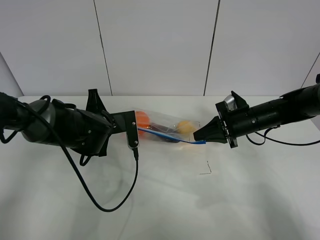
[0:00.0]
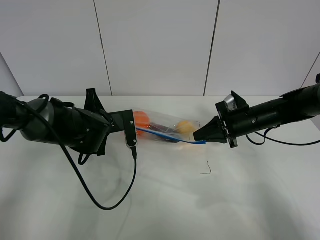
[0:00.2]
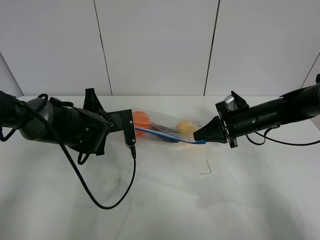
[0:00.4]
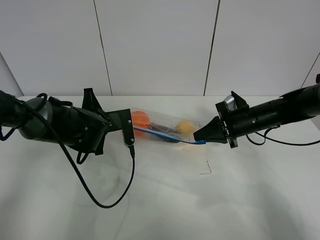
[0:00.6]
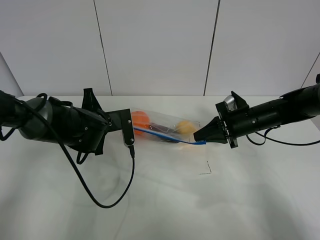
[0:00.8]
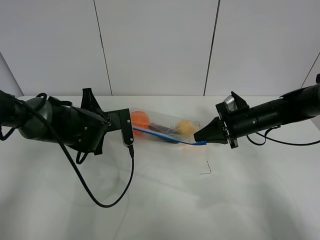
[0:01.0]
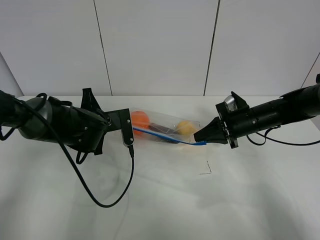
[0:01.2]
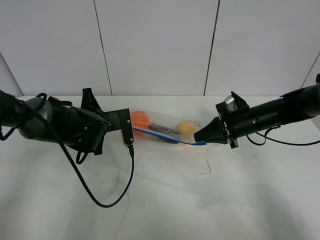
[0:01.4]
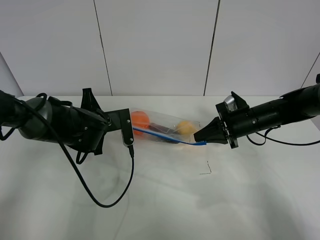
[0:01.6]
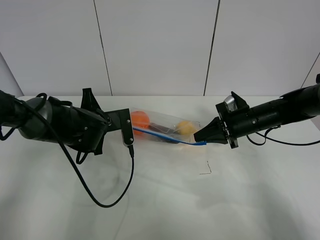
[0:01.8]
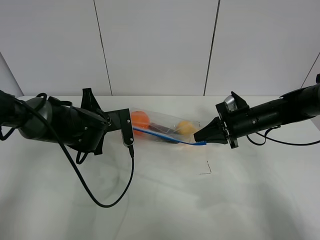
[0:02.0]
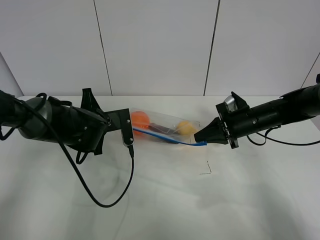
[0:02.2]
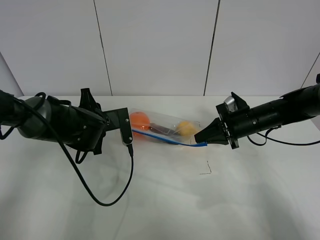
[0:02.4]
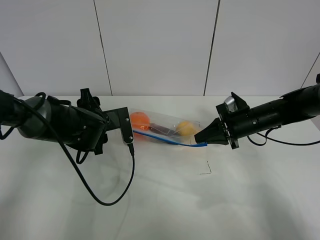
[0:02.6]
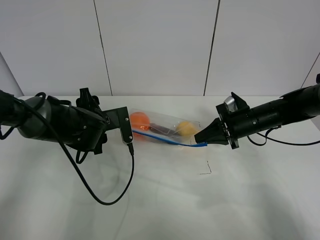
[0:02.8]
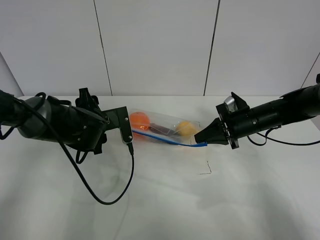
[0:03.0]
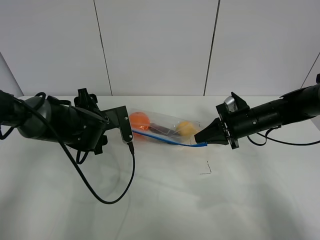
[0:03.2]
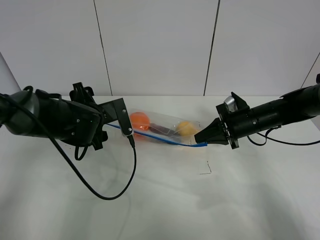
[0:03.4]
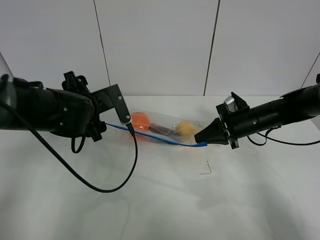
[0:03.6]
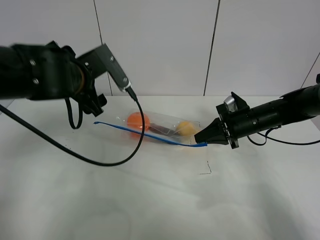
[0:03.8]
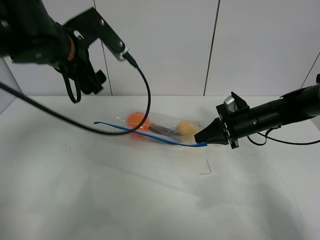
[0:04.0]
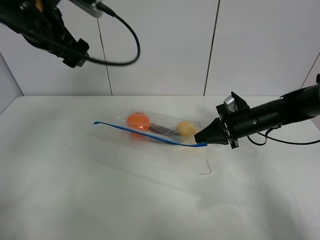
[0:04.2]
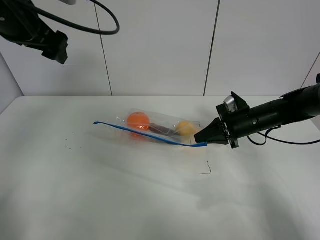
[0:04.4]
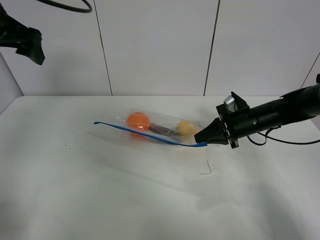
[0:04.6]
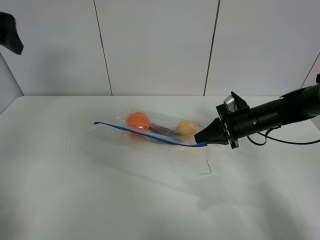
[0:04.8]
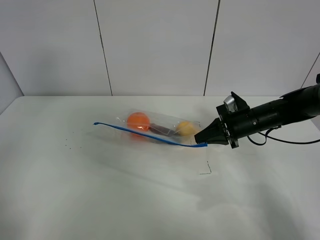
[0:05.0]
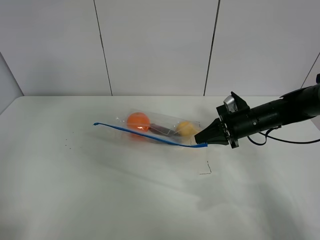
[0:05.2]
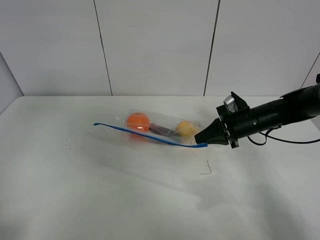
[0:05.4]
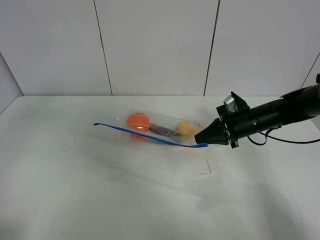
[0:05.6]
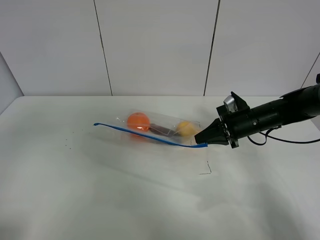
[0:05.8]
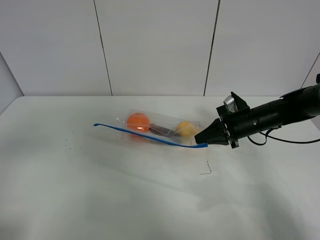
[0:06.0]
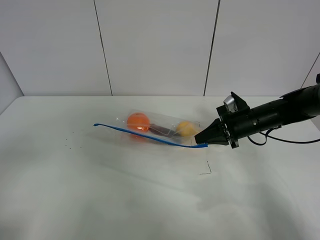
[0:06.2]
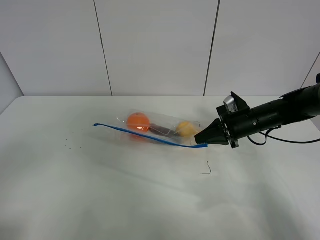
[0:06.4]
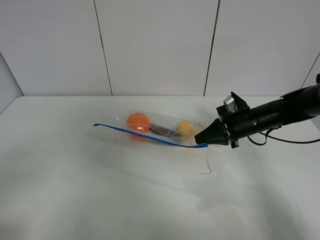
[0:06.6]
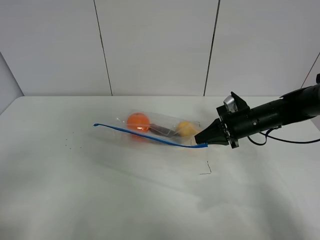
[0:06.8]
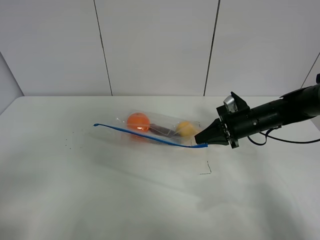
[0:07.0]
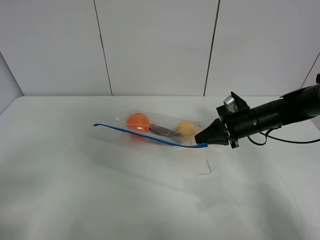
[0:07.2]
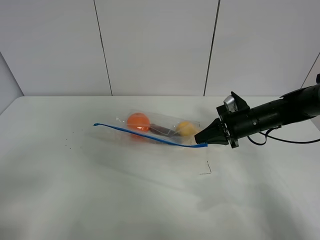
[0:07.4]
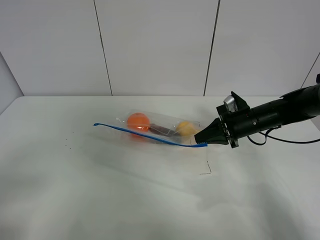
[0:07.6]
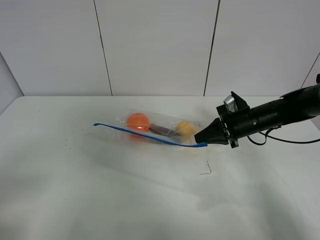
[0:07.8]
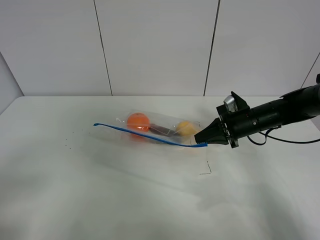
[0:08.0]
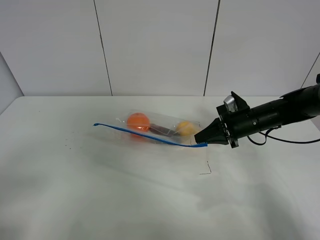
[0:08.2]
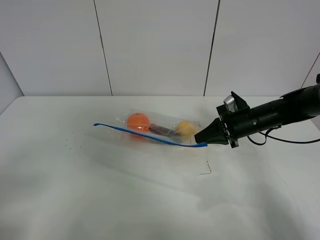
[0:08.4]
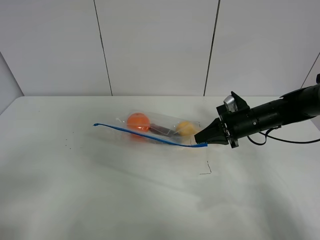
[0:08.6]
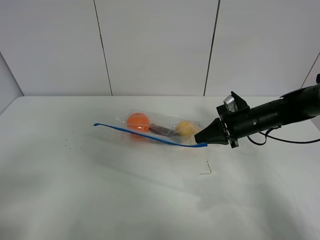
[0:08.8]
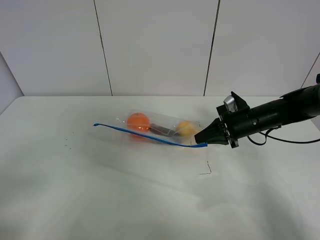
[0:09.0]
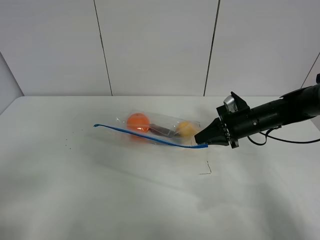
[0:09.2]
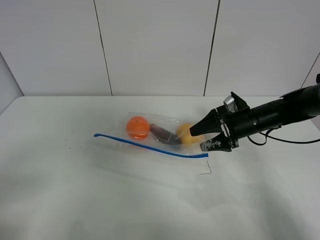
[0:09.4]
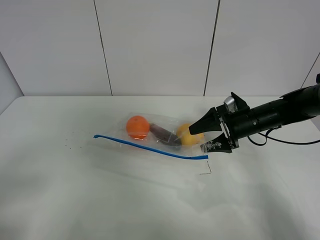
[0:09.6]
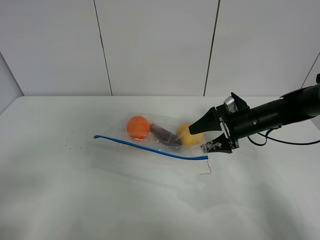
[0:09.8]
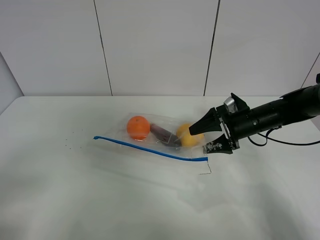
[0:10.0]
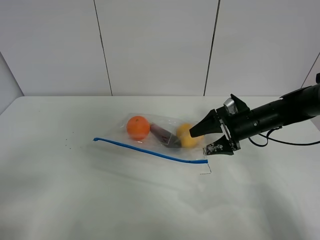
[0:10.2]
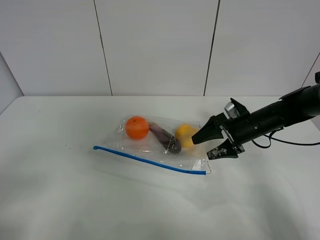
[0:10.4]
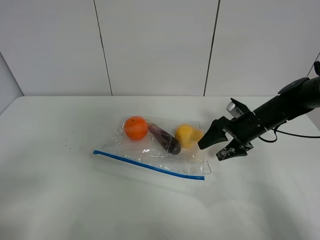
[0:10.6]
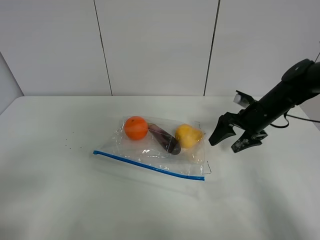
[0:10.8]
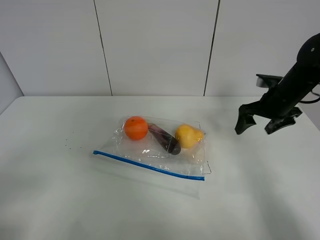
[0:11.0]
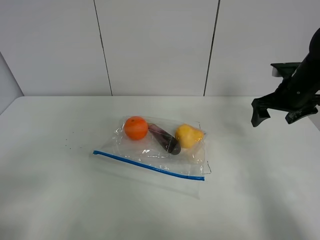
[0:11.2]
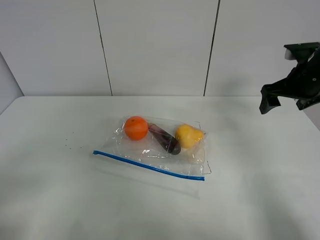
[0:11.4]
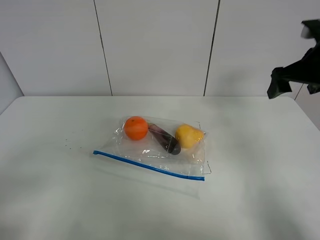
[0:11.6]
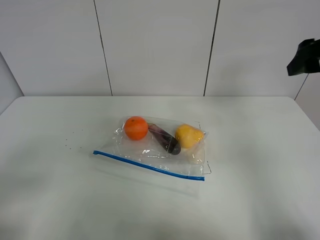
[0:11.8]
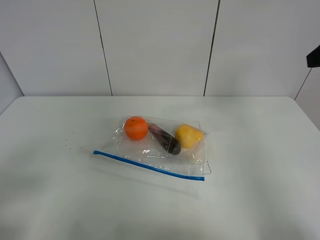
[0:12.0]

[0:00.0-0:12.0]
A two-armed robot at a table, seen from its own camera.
Step, 0:00.0 to 0:02.8: Pull the fruit bag with left gripper.
0:00.0 to 0:01.6: Both grippers stay put.
0:01.6 to 0:03.0: The left gripper opens.
0:03.0 to 0:04.4: The left gripper moves upward and to the left, approximately 25 cm.
0:04.4 to 0:06.0: The left gripper travels backward by some 30 cm.
0:06.0 to 0:07.6: The left gripper goes about 10 cm downward and backward.
0:07.6 to 0:09.0: Neither gripper changes place.
0:09.0 to 0:10.4: The right gripper opens its fingers.
0:10.4 to 0:12.0: The right gripper travels upward and backward by approximately 30 cm.

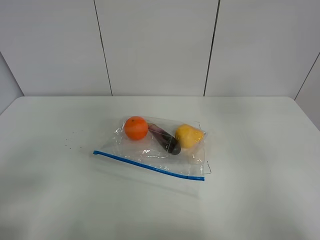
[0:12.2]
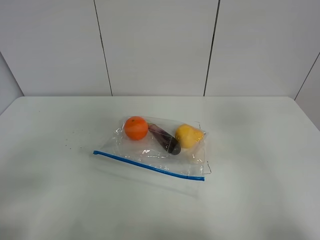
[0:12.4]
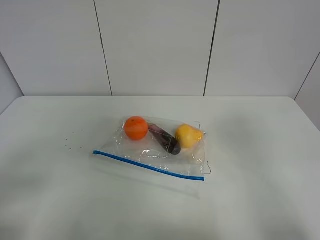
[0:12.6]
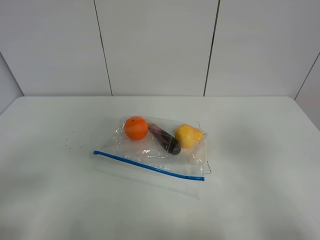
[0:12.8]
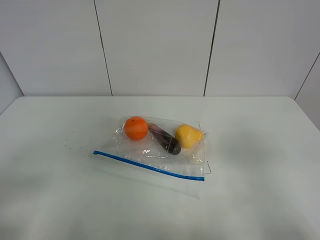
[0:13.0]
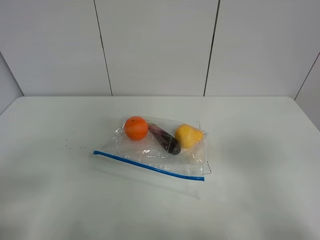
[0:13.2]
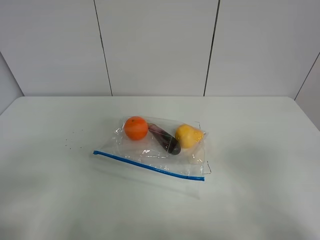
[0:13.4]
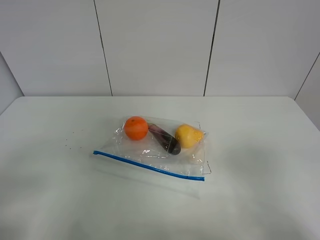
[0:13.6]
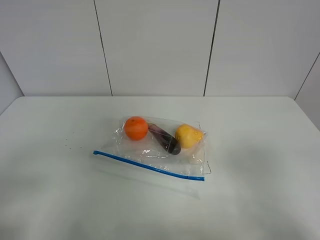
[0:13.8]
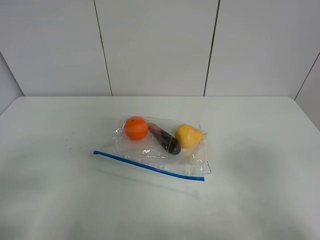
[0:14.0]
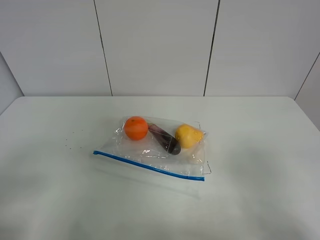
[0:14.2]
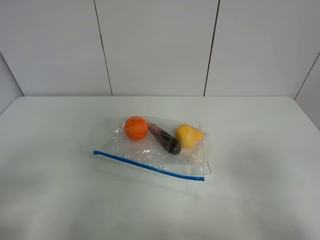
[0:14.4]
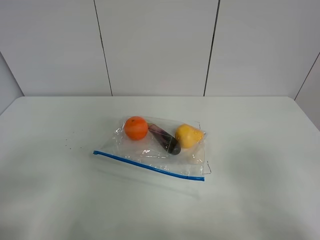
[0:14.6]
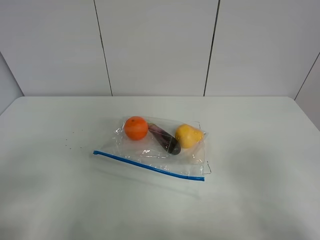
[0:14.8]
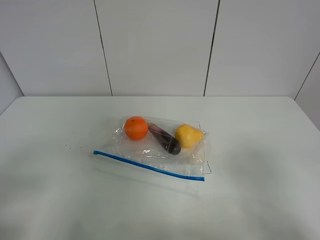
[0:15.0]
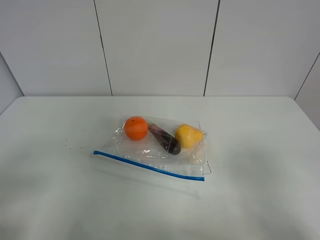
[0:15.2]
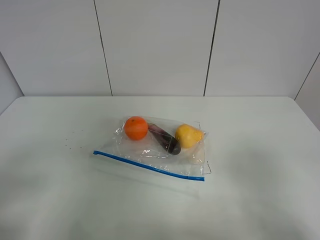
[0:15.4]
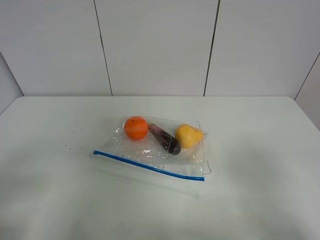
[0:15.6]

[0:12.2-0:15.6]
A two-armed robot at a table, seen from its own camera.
0:12.2 to 0:13.8: The right gripper travels backward and downward by about 20 cm.

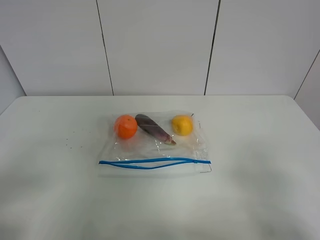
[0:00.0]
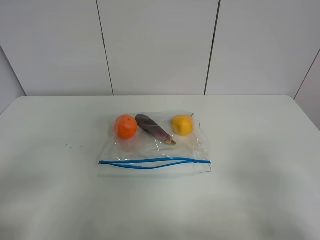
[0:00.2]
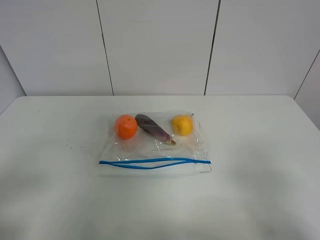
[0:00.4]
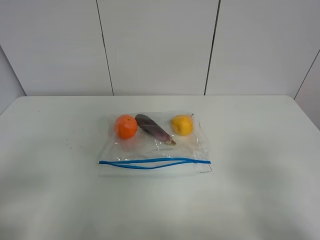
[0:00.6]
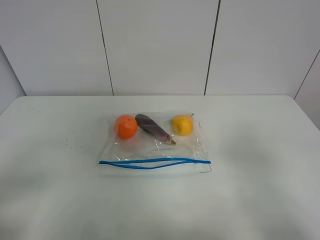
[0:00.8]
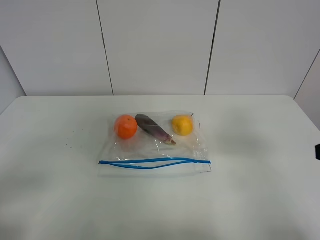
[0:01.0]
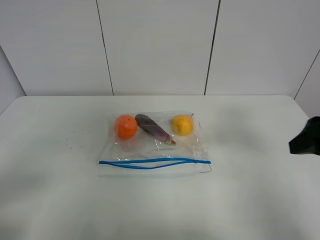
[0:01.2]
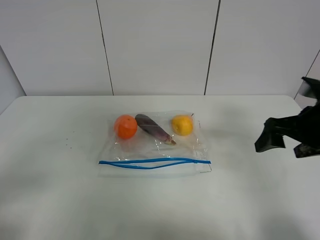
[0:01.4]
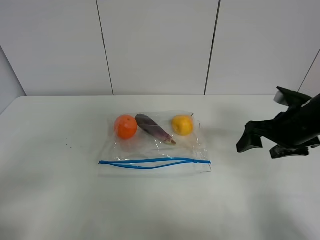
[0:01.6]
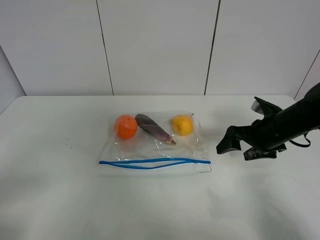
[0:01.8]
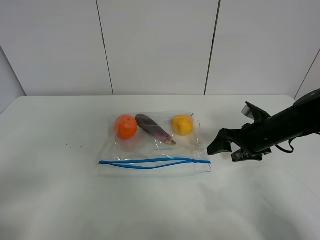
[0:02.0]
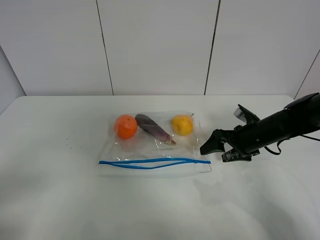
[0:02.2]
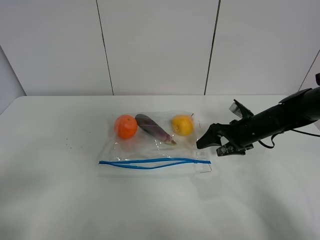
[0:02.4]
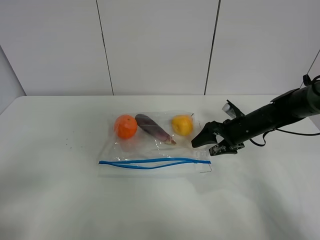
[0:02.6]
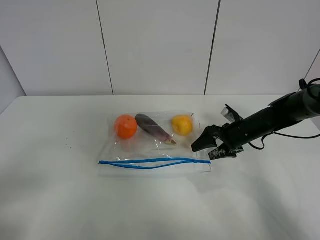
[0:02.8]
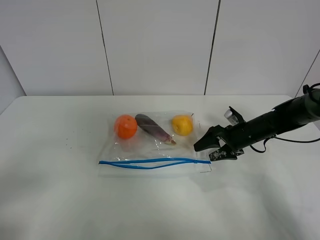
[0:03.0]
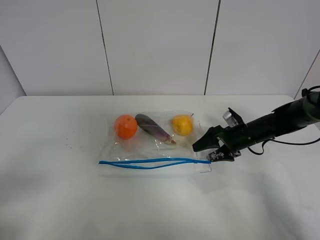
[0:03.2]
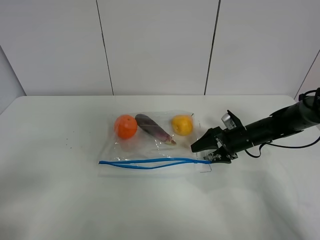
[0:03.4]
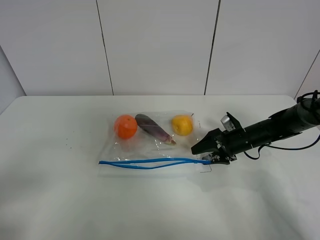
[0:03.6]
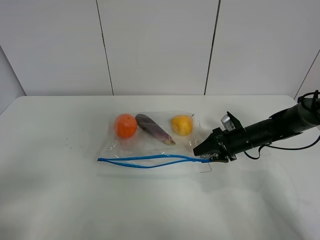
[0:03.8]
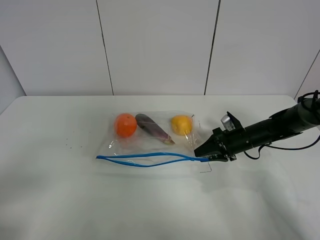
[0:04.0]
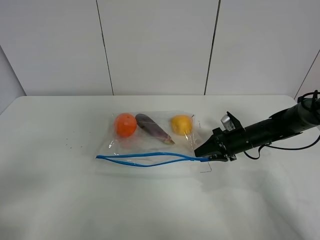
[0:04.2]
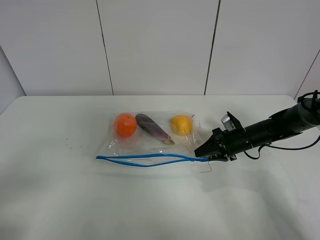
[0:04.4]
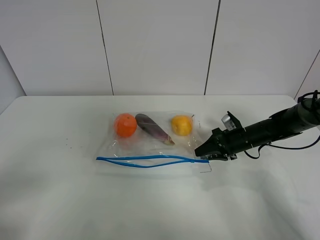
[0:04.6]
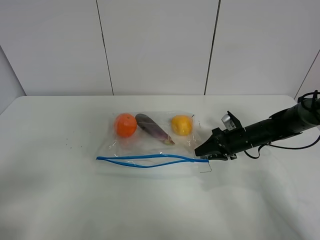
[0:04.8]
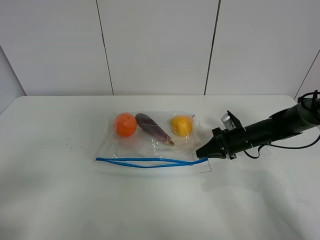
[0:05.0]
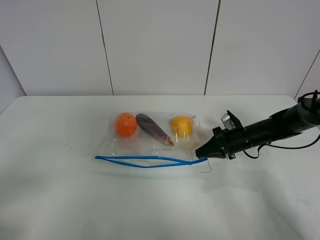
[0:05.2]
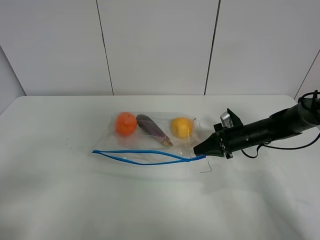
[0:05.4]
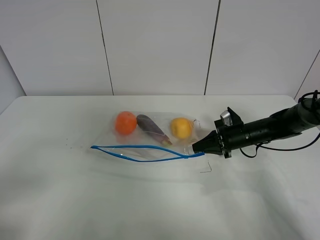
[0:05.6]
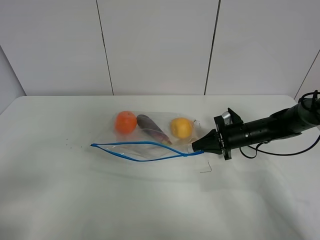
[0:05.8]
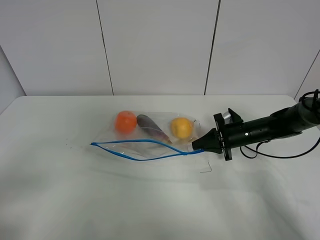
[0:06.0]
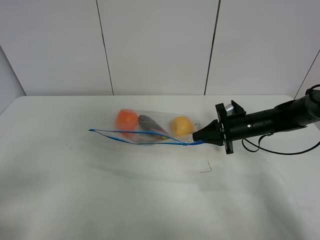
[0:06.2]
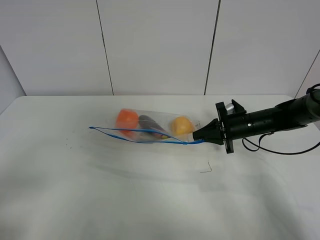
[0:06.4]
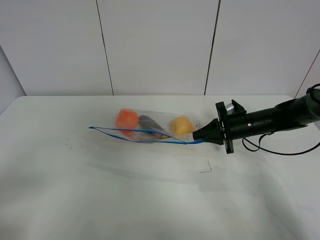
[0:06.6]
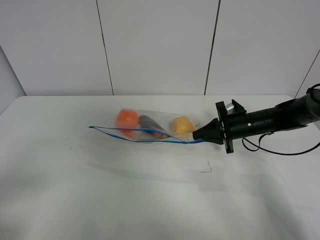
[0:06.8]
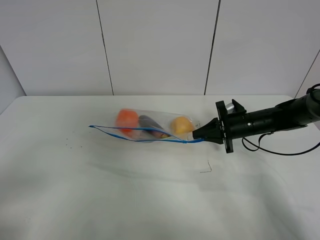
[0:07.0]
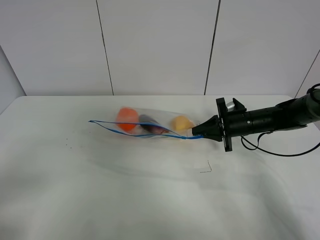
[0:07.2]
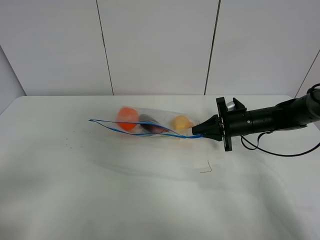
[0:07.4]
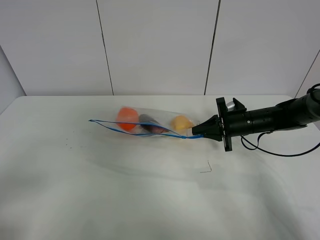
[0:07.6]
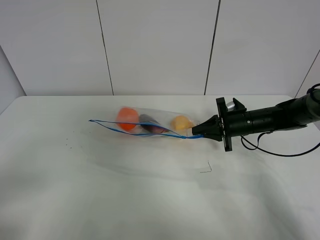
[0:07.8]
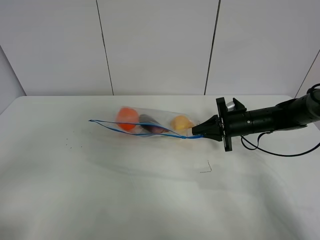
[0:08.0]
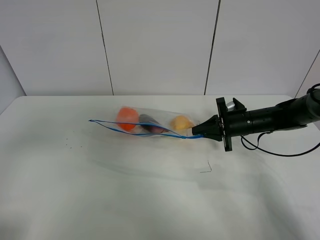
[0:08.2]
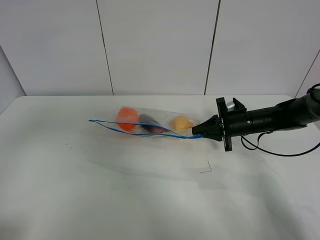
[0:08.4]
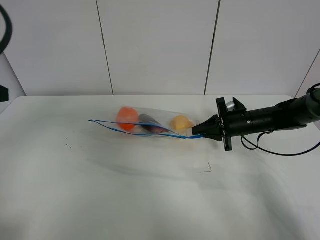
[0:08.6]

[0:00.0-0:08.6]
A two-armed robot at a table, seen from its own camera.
Step, 0:00.0 to 0:05.0: Grasp the fruit bag with right gripper.
Step, 0:05.2 to 0:07.8: Lift the fruit bag with your right gripper.
0:00.0 to 0:01.4: The right gripper is displaced forward by about 25 cm.
0:01.4 to 0:02.8: The right gripper moves downward and forward, approximately 20 cm.
0:02.8 to 0:04.4: The right gripper closes its fingers.
0:04.4 to 0:05.8: The right gripper closes its fingers.
0:05.8 to 0:07.2: The grippers move only a little.
0:07.2 to 0:08.6: The left gripper moves forward and upward, about 20 cm.
